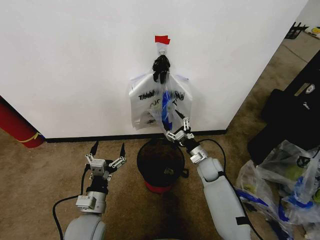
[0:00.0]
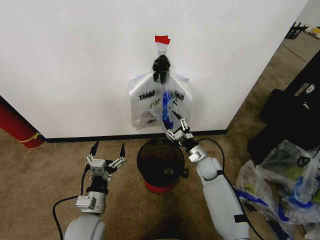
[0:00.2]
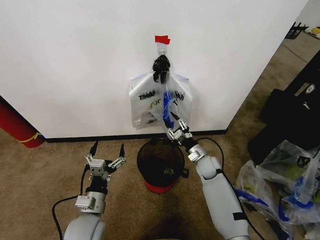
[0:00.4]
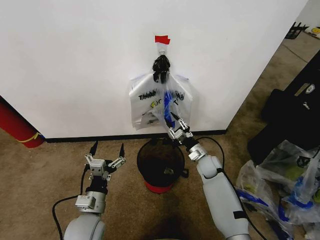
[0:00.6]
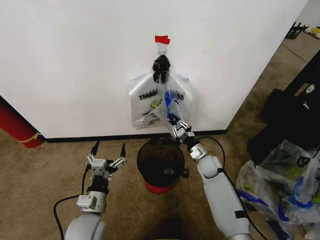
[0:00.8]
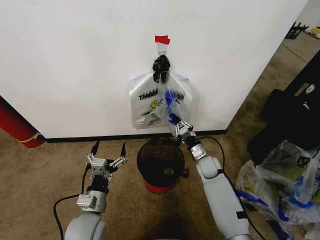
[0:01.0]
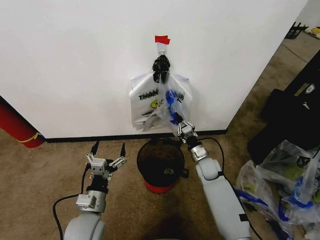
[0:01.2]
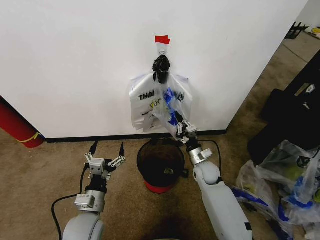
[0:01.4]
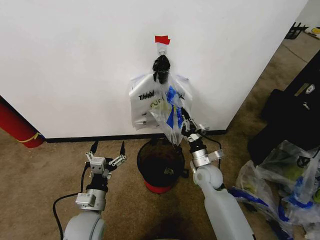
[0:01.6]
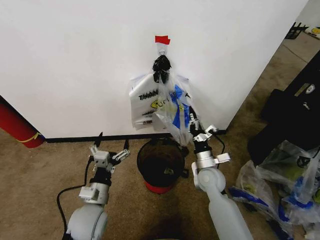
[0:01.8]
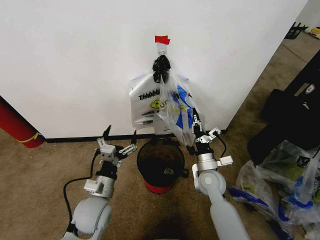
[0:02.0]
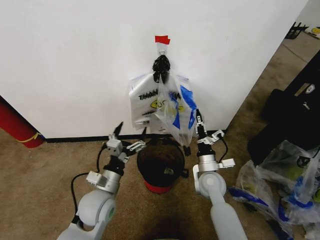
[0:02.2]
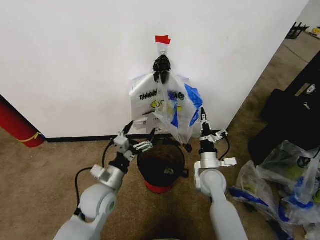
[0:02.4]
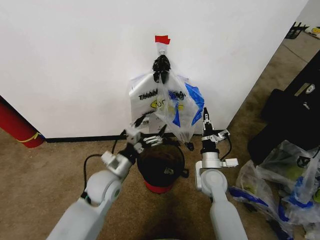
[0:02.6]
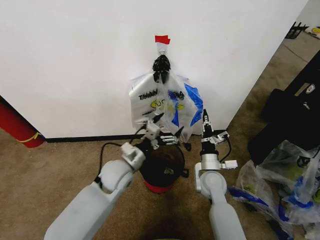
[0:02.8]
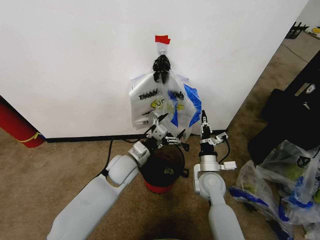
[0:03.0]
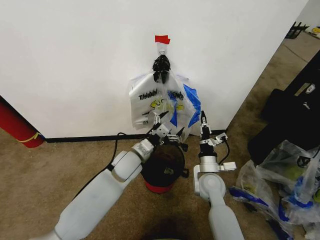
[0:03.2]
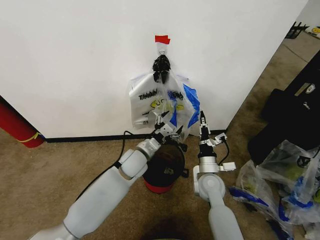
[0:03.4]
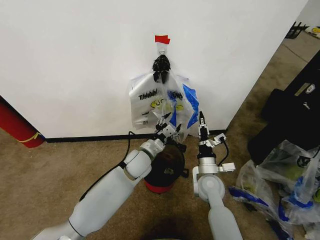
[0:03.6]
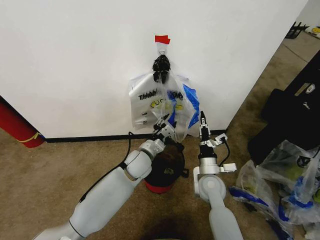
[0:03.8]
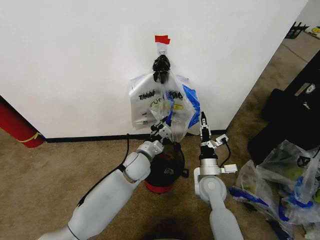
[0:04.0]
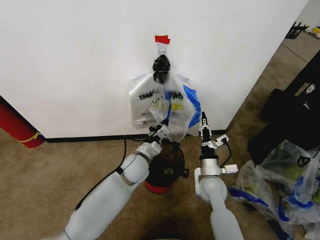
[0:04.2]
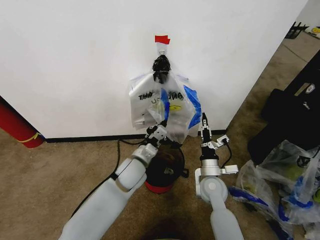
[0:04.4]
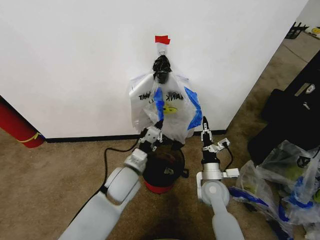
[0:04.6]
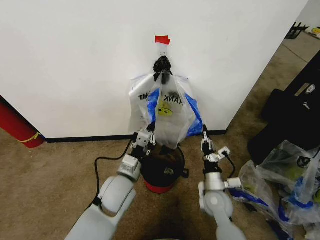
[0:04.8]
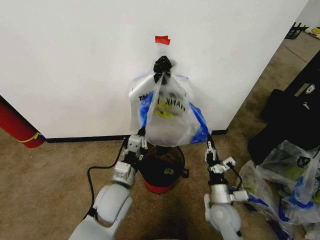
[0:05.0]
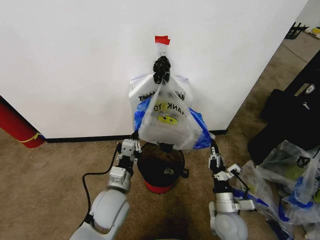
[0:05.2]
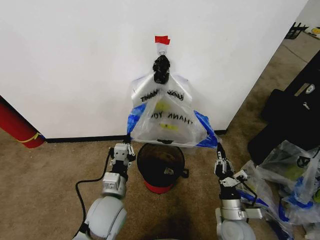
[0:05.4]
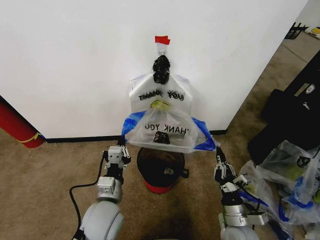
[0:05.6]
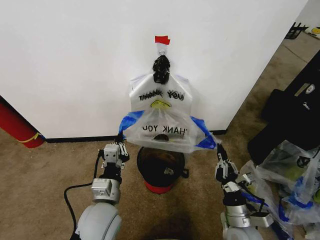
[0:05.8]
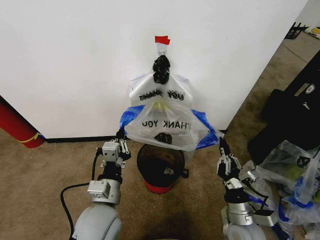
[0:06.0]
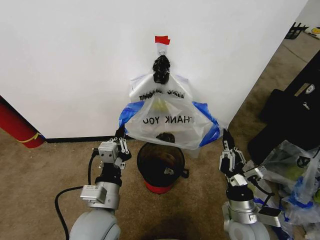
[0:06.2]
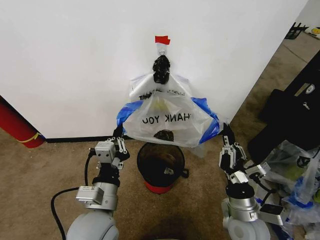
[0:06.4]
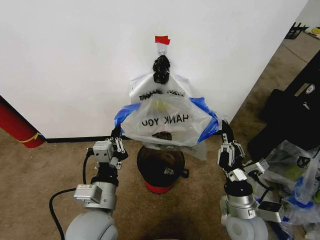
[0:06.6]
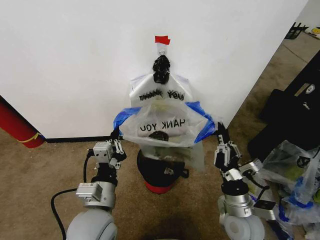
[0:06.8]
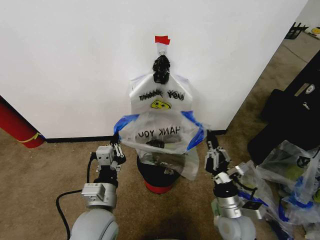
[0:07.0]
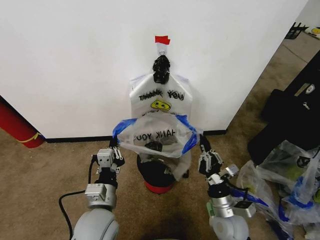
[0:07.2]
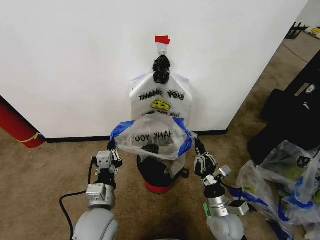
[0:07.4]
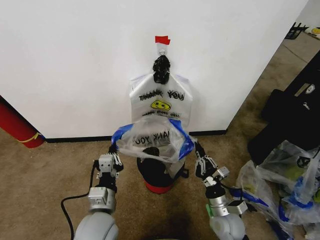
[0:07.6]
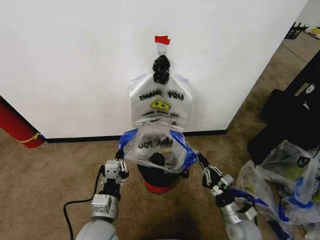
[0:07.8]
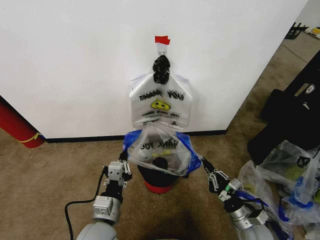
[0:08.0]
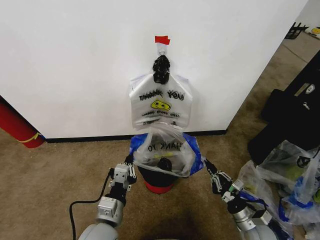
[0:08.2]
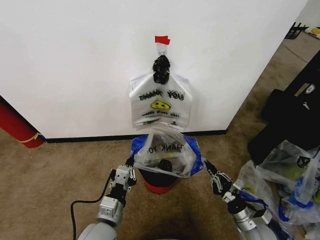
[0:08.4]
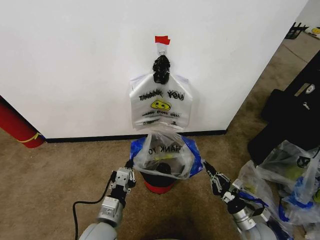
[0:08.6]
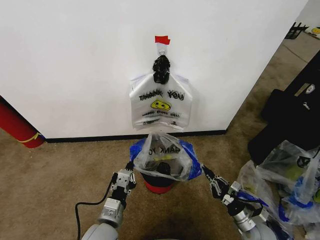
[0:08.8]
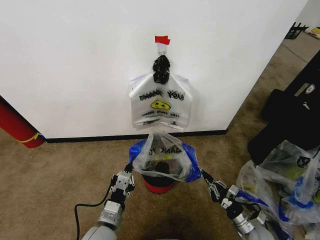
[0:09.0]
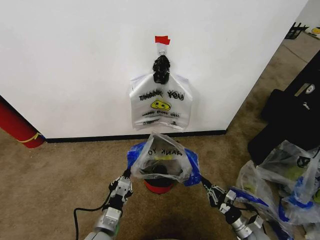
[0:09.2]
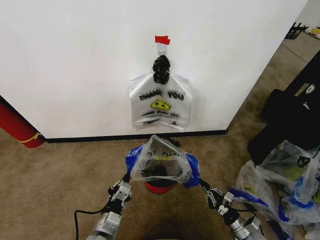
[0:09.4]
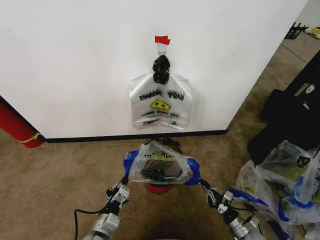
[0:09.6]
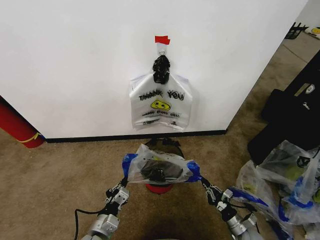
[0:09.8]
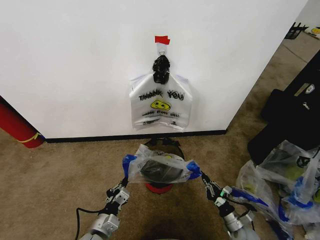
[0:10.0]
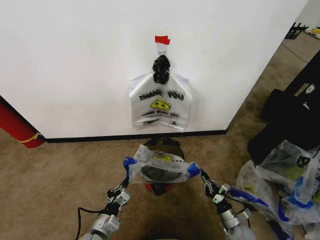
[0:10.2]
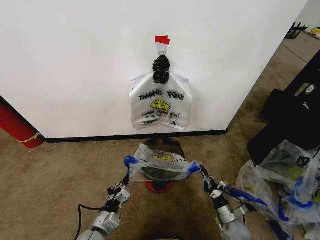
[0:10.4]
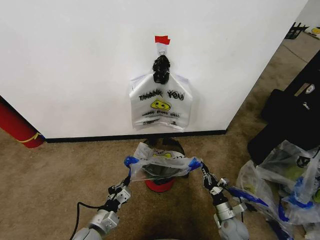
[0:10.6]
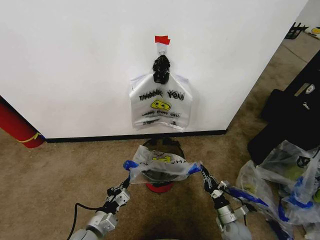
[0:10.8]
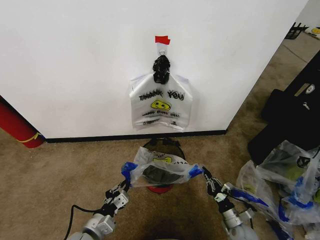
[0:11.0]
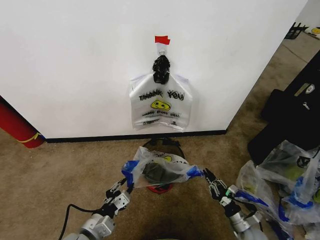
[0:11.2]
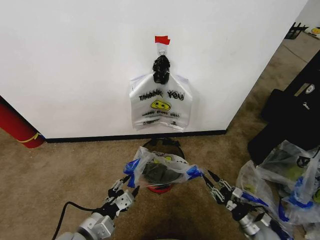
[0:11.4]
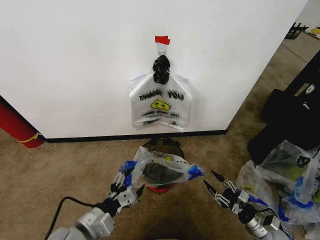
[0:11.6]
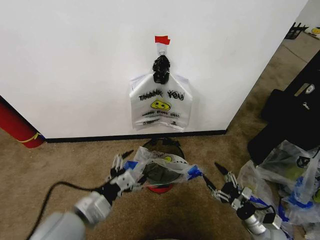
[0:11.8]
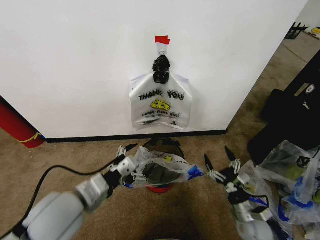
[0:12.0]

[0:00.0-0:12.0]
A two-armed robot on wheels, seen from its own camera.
Task of the whole recording: Pick up the garbage bag from the wall and place it over the trash bin.
0:00.0 to 0:01.6: The right gripper changes place by some 5 cm, and closes its fingers.
0:01.6 to 0:03.0: The left gripper shifts approximately 20 cm forward and to the right.
0:03.0 to 0:04.4: The left gripper closes up.
0:04.4 to 0:06.0: The left gripper moves backward, about 15 cm, while the right gripper is displaced backward and to the right by approximately 15 cm.
0:06.0 to 0:07.6: The right gripper changes place by roughly 5 cm.
0:07.6 to 0:09.0: The right gripper goes roughly 15 cm to the right and downward; the left gripper shifts roughly 5 cm downward.
0:09.0 to 0:10.4: Both grippers travel together downward, approximately 5 cm.
0:10.4 to 0:12.0: The right gripper travels upward by approximately 15 cm, and opens its fingers. Meanwhile the left gripper goes approximately 20 cm upward, and opens.

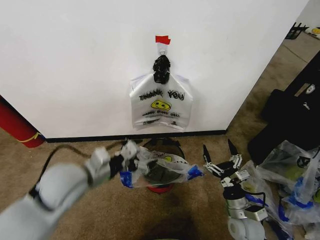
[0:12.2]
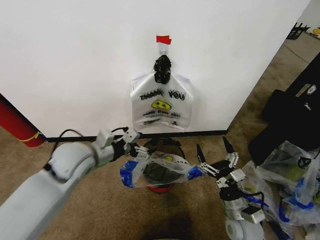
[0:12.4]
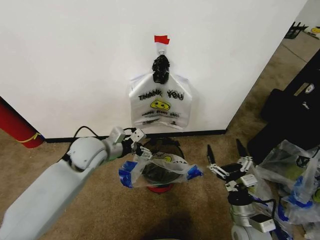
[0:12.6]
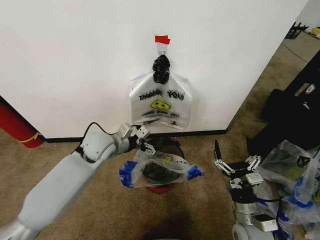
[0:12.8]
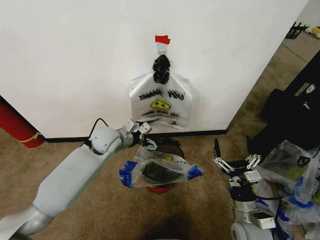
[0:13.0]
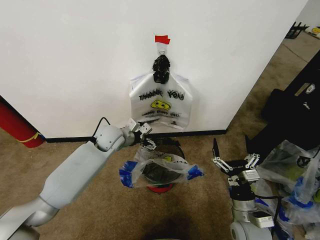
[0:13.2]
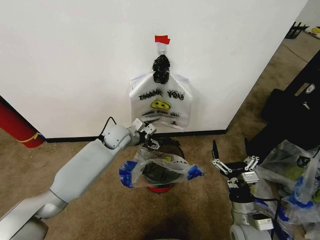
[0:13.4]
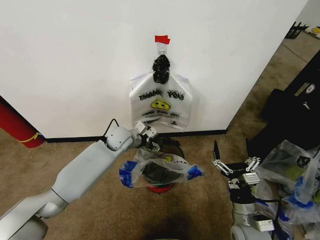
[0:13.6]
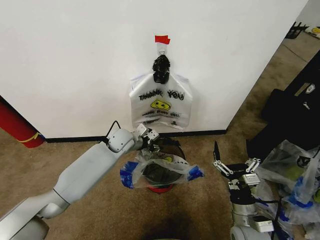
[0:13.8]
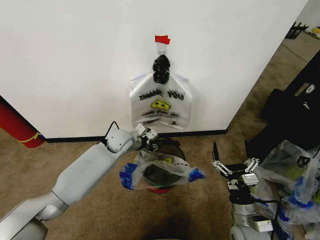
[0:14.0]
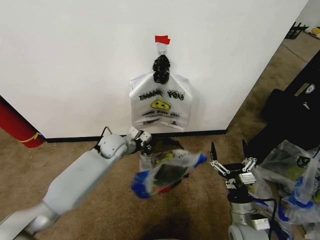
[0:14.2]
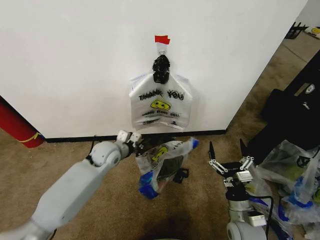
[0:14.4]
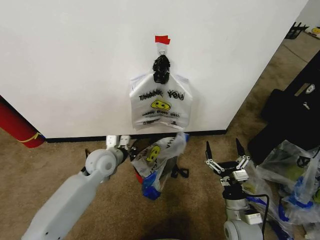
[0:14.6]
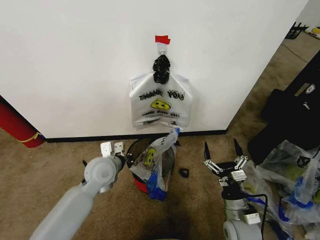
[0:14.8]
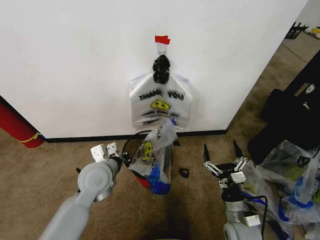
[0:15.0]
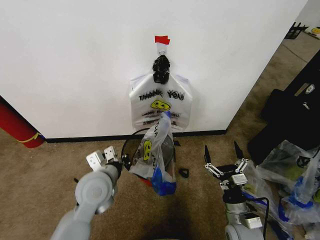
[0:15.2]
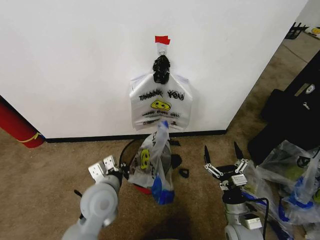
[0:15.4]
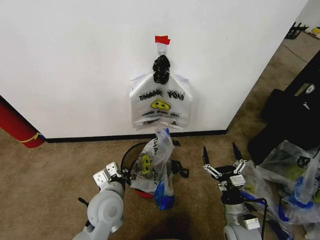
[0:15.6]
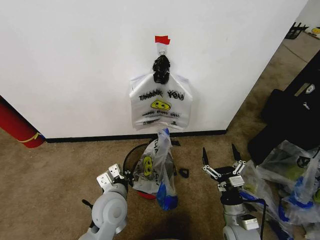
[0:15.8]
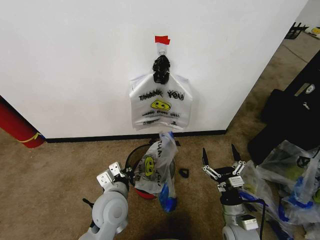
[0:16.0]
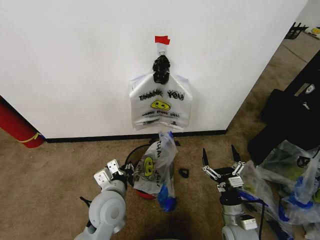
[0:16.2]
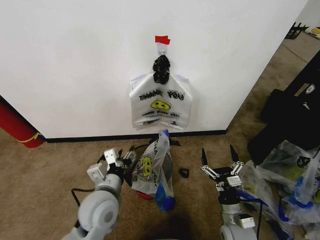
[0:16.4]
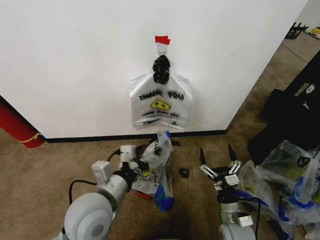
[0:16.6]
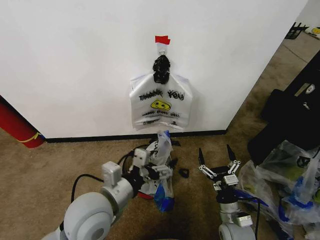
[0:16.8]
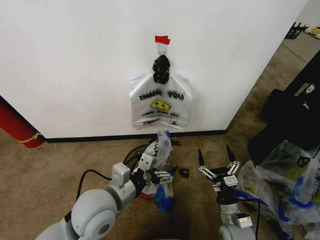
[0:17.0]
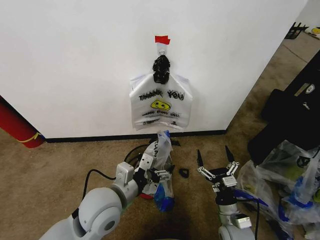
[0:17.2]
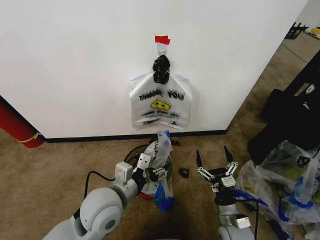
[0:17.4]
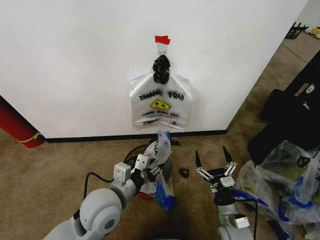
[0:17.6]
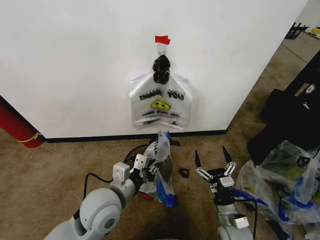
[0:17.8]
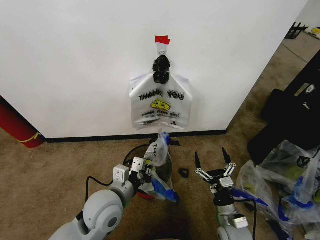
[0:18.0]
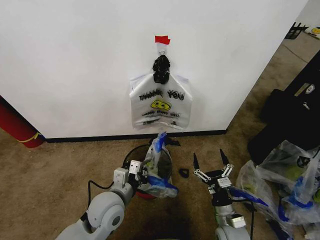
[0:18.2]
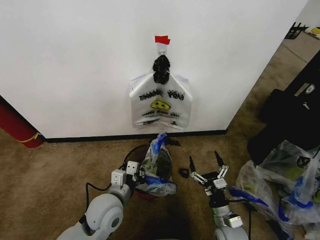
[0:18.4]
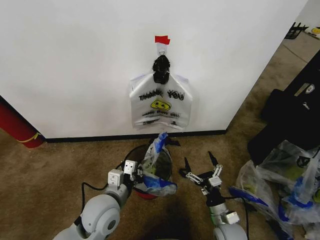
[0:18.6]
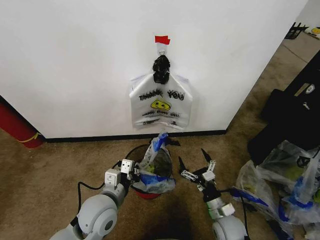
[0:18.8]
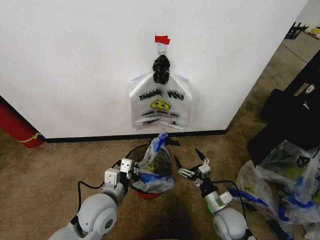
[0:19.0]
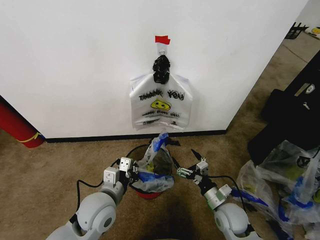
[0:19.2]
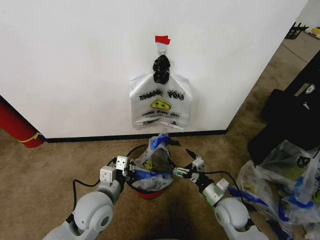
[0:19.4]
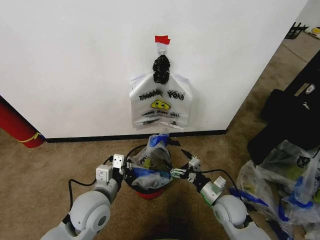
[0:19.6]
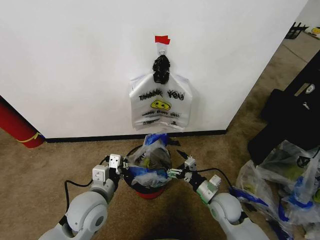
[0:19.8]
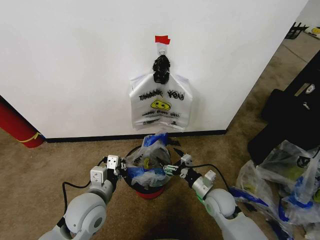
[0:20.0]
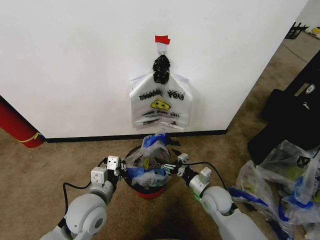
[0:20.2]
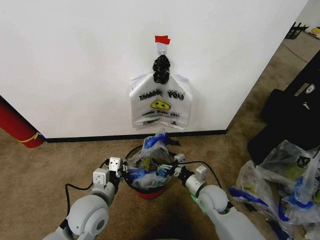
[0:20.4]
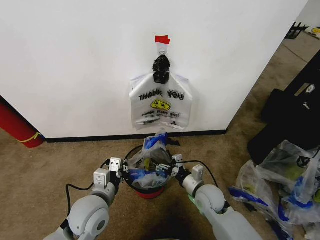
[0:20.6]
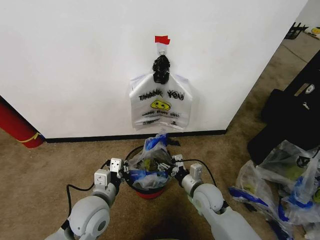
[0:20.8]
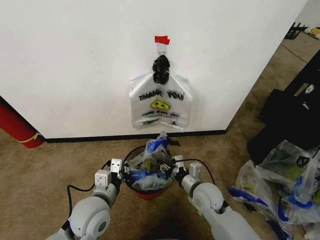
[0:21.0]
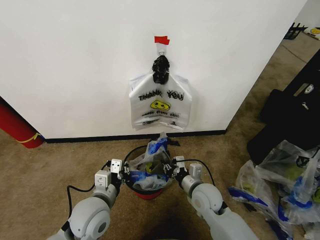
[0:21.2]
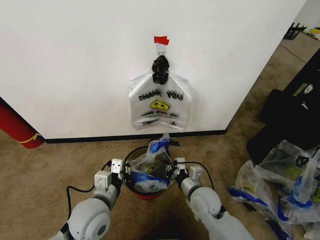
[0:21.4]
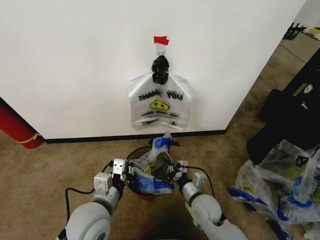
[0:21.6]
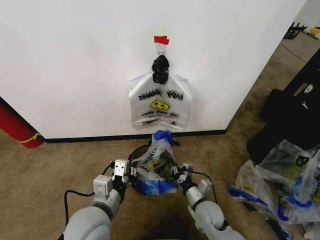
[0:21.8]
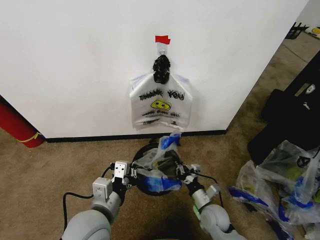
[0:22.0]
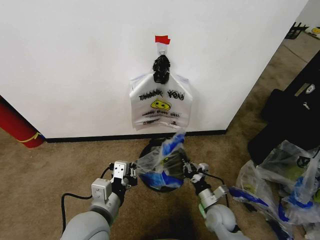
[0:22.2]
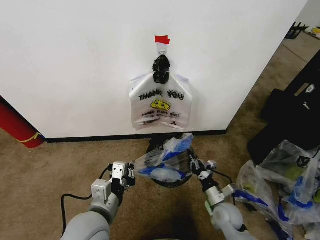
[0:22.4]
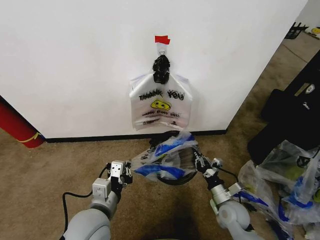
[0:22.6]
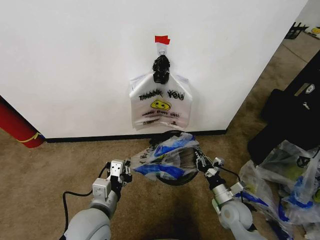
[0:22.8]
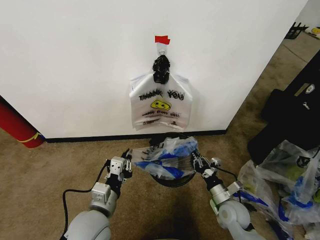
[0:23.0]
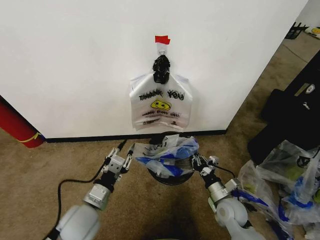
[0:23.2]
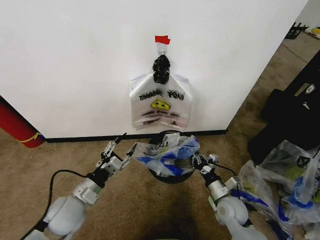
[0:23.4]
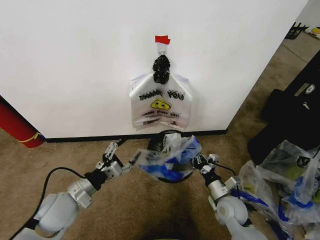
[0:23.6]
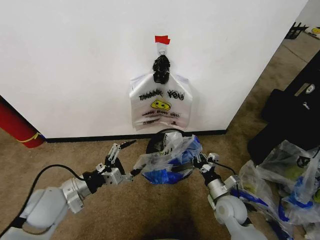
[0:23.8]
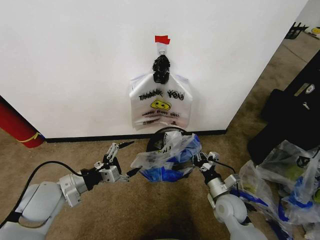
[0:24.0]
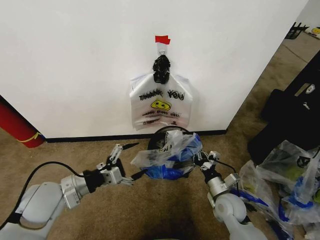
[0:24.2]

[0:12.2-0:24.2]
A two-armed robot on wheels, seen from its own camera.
Task of the whole recording: Pick up the garbage bag from the wall and place it over the trash bin.
0:12.2 to 0:13.8: The left gripper is displaced forward and downward by approximately 25 cm, and closes.
0:13.8 to 0:15.2: The left gripper is displaced backward by roughly 20 cm, and closes up.
0:15.2 to 0:16.6: The left gripper is displaced backward by roughly 5 cm, and opens its fingers.
0:16.6 to 0:18.2: The left gripper travels downward by about 10 cm, and closes.
0:18.2 to 0:19.8: The right gripper is displaced forward by about 10 cm.
0:19.8 to 0:21.2: The right gripper shifts some 5 cm to the left, and closes.
0:21.2 to 0:22.6: The right gripper travels to the right and downward by about 15 cm.
0:22.6 to 0:24.2: The left gripper travels to the left and forward by some 15 cm, and opens up.
